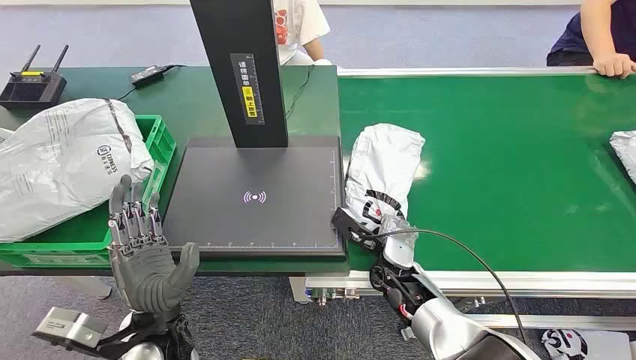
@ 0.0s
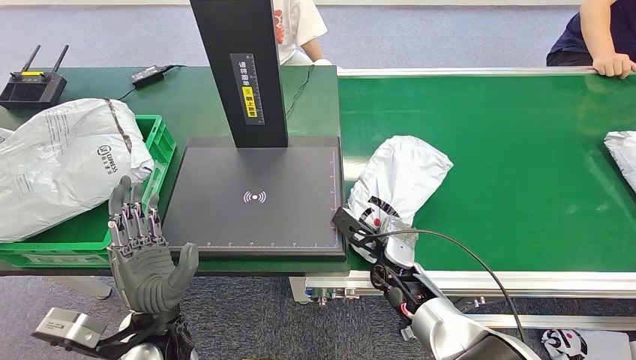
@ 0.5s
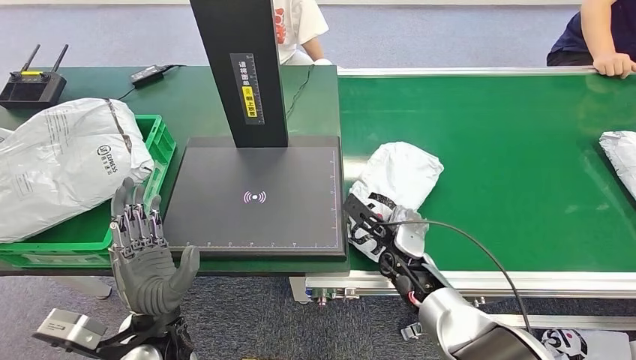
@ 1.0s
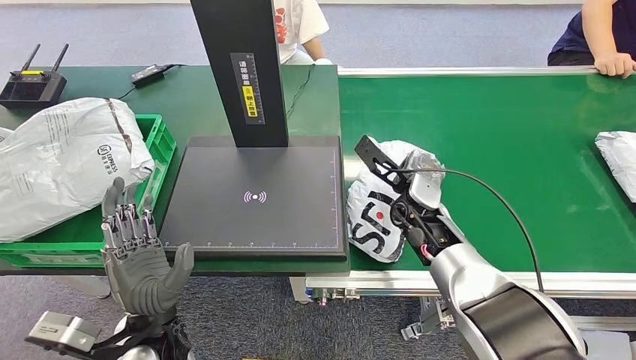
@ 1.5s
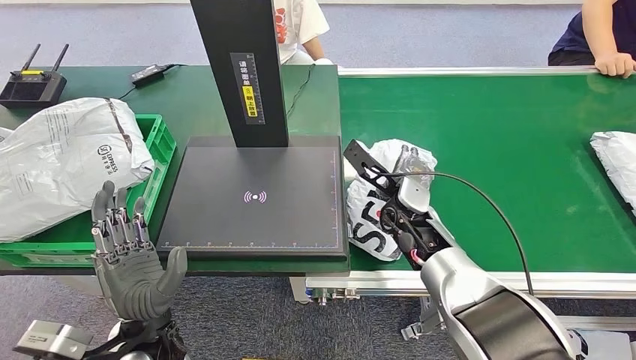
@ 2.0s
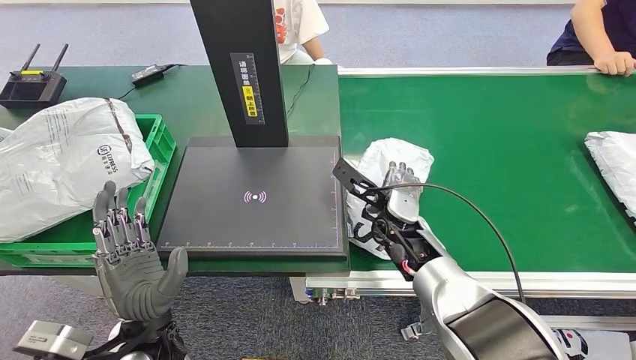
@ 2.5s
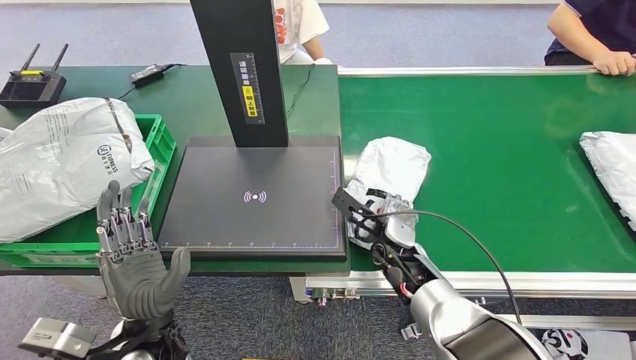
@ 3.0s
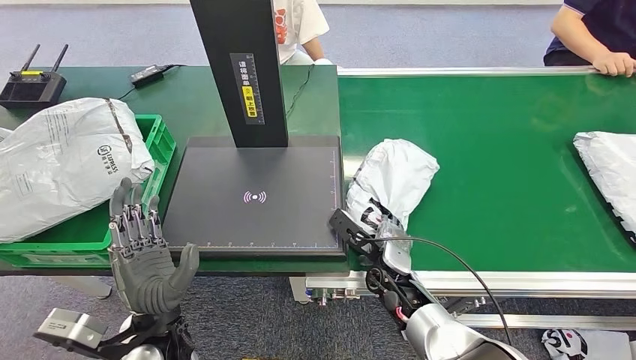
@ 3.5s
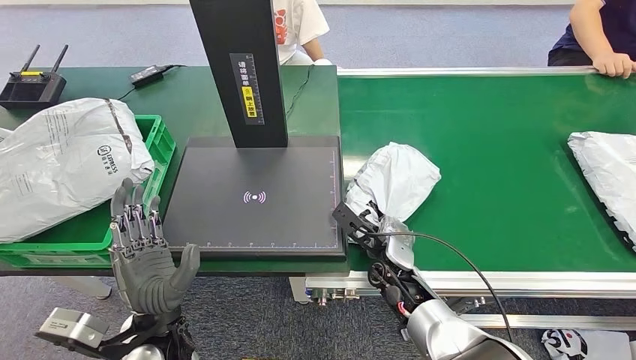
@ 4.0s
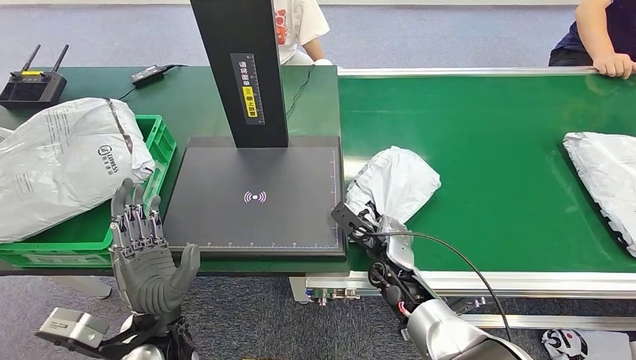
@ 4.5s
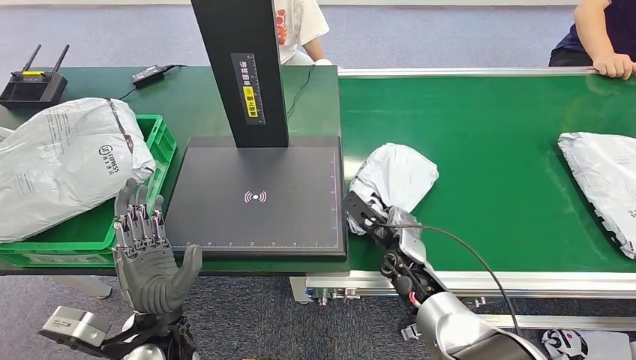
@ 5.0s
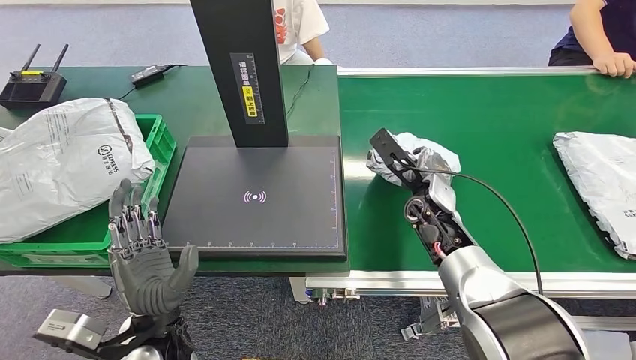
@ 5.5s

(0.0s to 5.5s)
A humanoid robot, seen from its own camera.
Step, 0.0s - 5.5s: Pick up the package from the conveyor belt.
2.0s - 3.5s: The right hand is displaced downward and backward by some 15 cm.
3.5s - 5.5s: The right hand shifts some 15 cm upward, forward and to the right.
